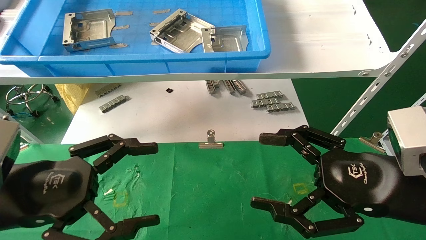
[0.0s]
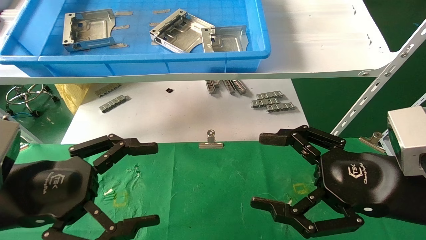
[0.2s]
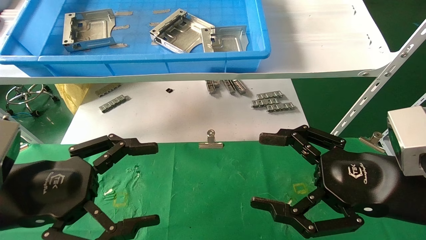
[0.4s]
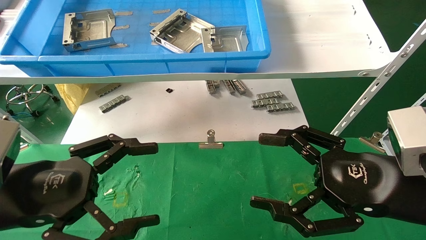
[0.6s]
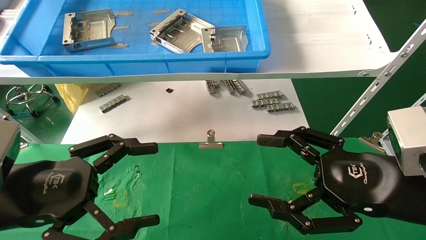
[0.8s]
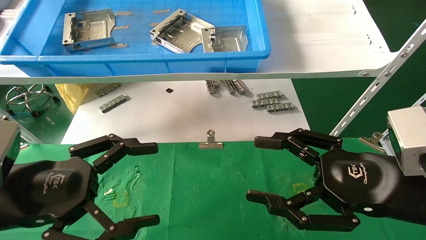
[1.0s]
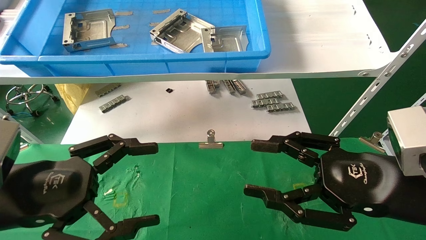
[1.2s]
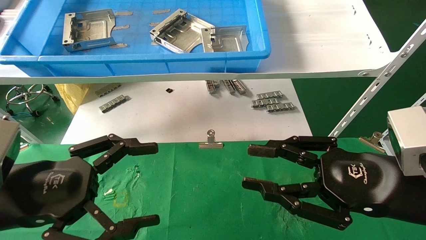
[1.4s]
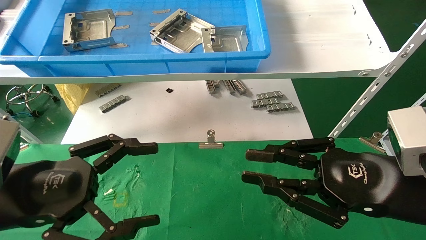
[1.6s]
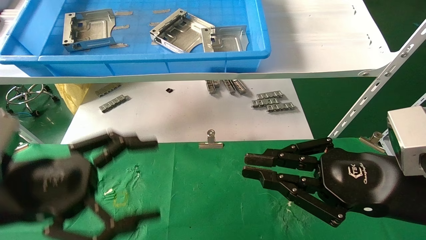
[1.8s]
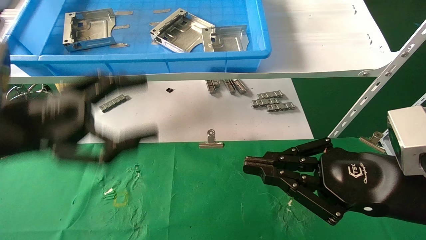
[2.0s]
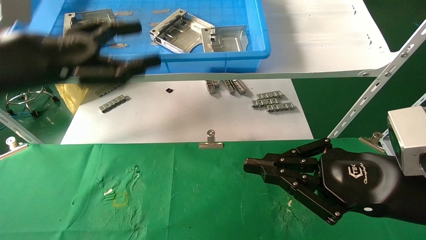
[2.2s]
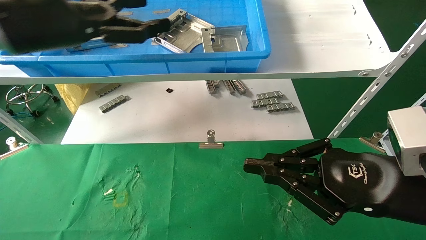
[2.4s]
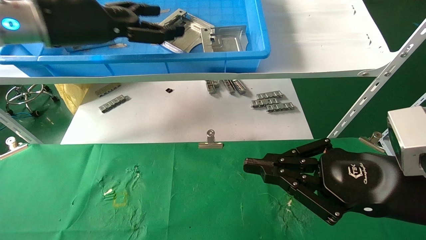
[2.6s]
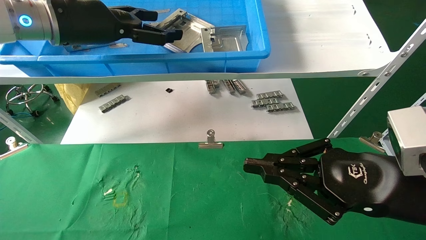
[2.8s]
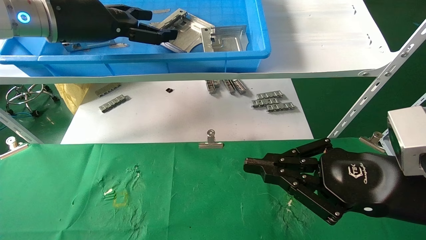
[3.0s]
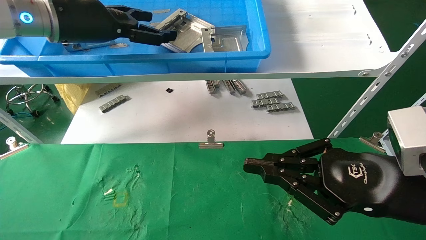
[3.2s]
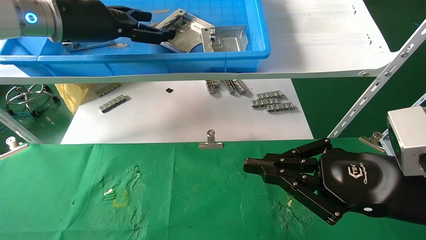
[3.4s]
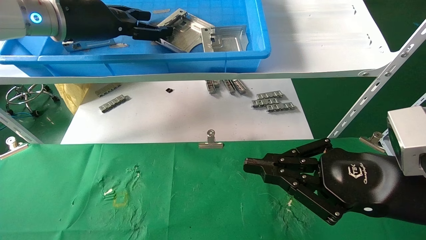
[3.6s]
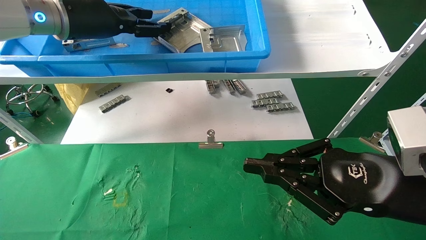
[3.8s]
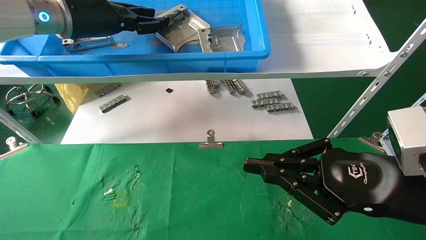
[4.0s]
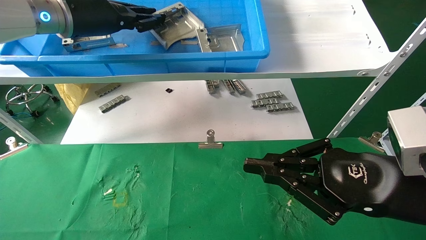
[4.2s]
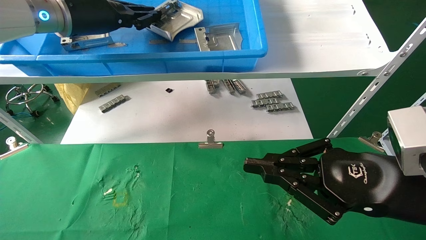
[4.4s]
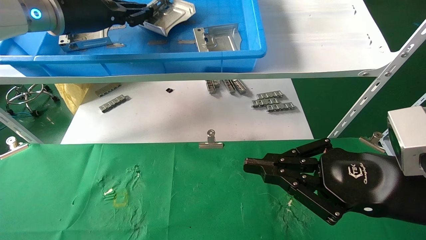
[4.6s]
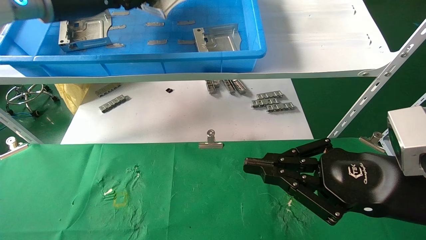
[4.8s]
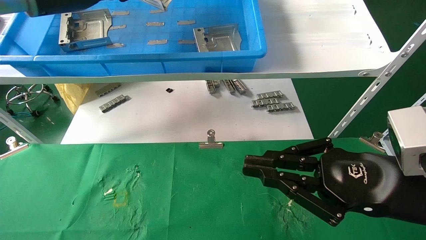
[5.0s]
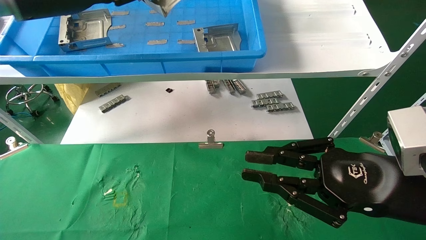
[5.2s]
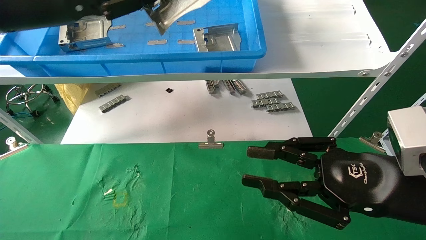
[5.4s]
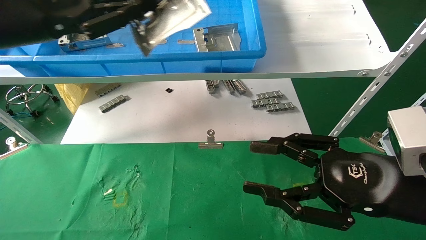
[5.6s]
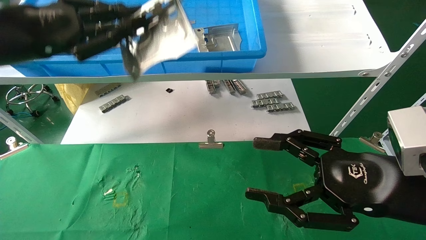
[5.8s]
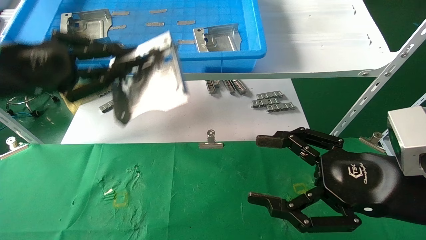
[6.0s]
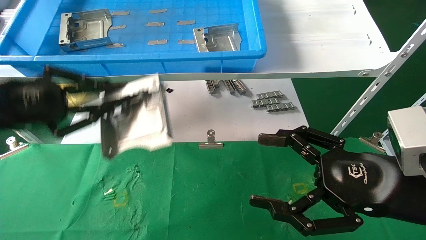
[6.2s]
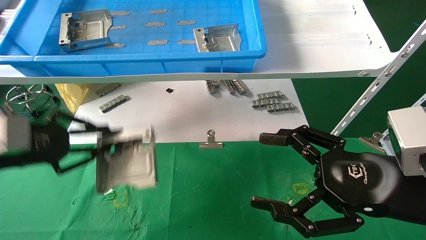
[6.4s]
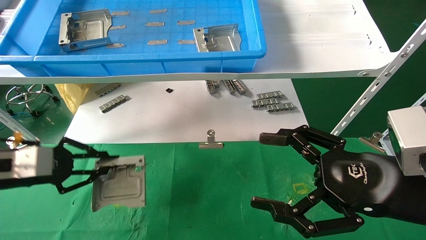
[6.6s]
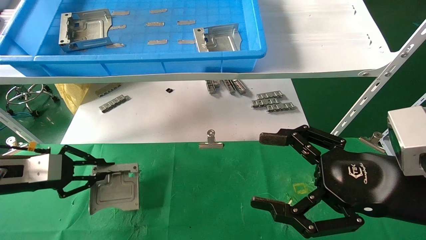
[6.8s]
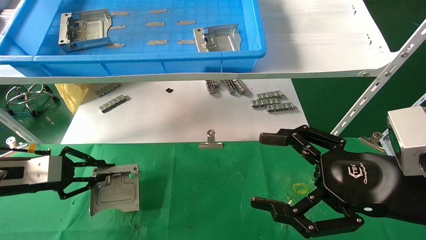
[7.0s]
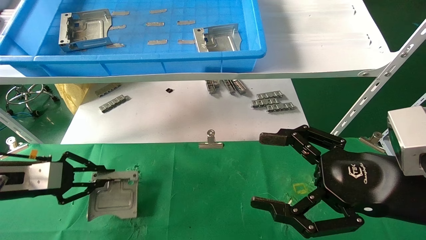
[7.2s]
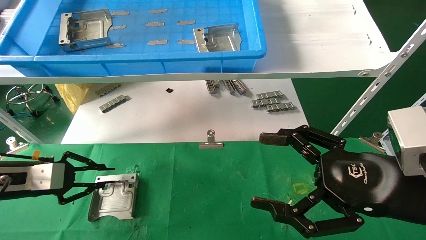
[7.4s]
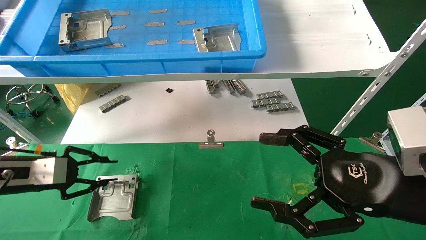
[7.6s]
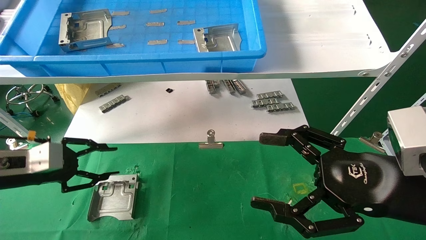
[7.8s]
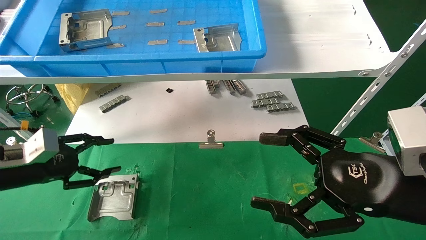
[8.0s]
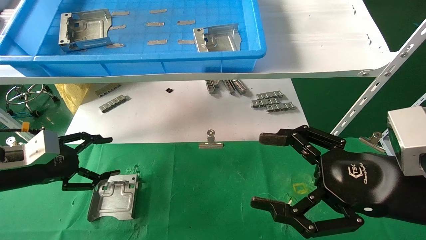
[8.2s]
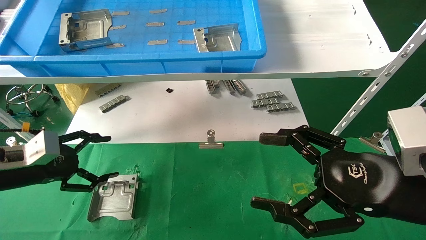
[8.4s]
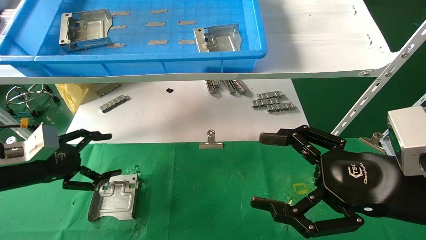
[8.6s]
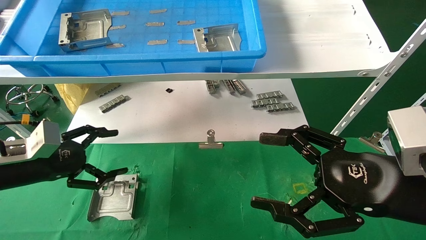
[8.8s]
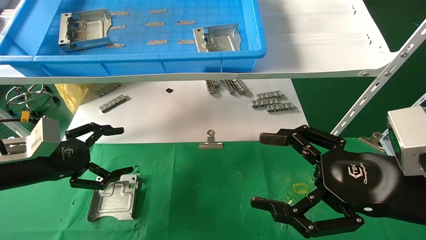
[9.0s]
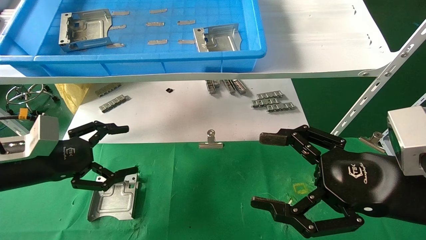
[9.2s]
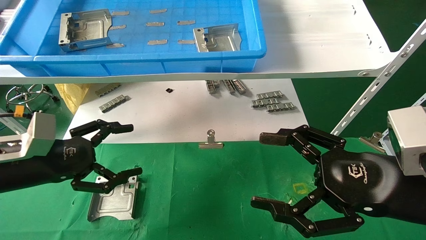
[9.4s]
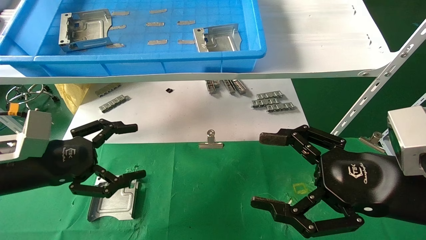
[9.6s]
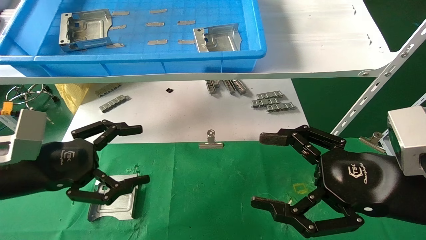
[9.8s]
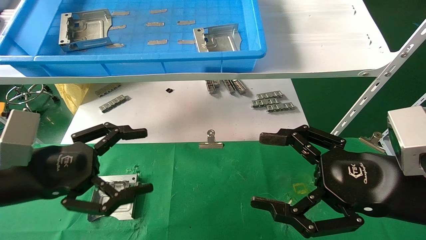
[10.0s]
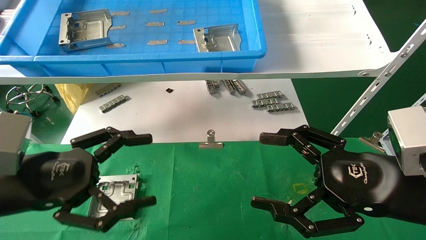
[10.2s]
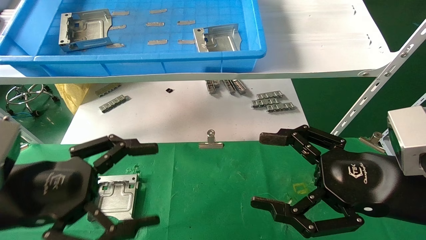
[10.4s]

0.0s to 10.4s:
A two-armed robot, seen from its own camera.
Task of the whole recording: use the mechanical arm to pick up the parts and place them on the table.
Step, 2.2s to 4.4s: Pick up the hard drive bracket from the feeding area.
Step, 4.6s to 7.4s: Place the hard drive bracket into the box.
0.0s to 1.4s: The right gripper closes.
1.4s to 3.0s: The right gripper closes, while the left gripper goes approximately 30 cm upward and forward.
3.0s to 4.4s: The left gripper closes.
4.4s to 6.0s: The left gripper heads backward, downward and to the left, covering roughly 20 cm. Meanwhile the right gripper opens.
6.0s to 7.4s: The left gripper shifts some 20 cm downward.
7.4s to 9.0s: The left gripper shifts by approximately 5 cm, and opens its fingers.
9.0s to 10.4s: The left gripper goes roughly 15 cm backward and to the right.

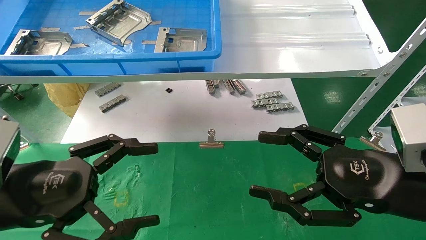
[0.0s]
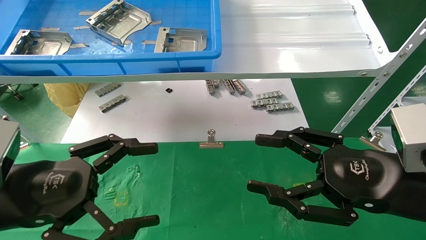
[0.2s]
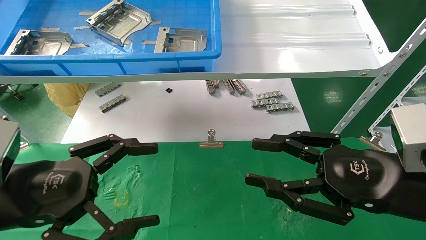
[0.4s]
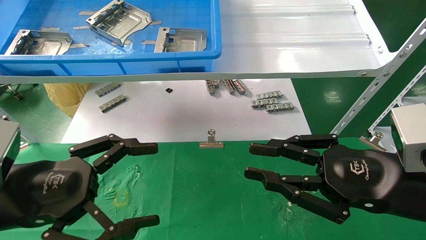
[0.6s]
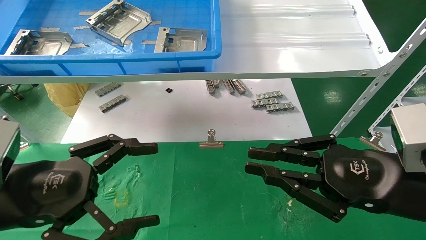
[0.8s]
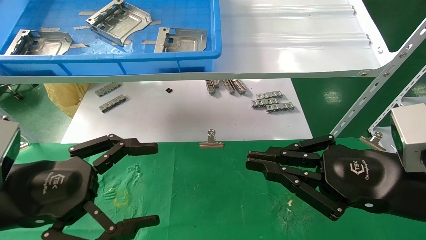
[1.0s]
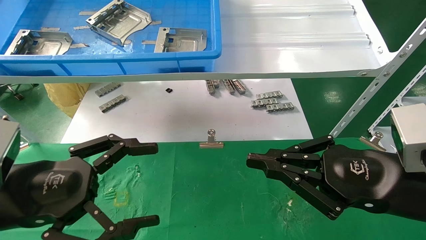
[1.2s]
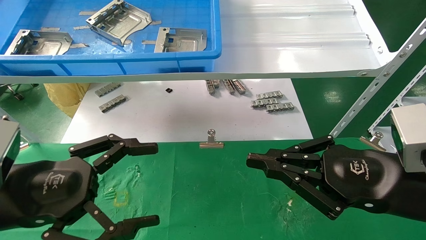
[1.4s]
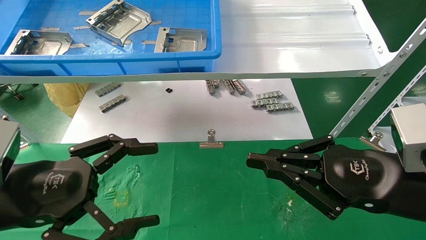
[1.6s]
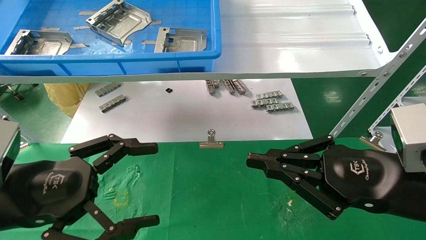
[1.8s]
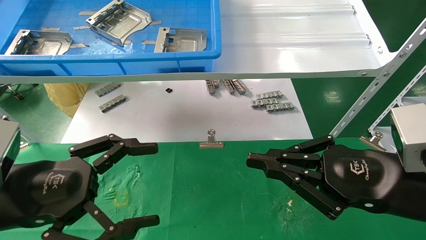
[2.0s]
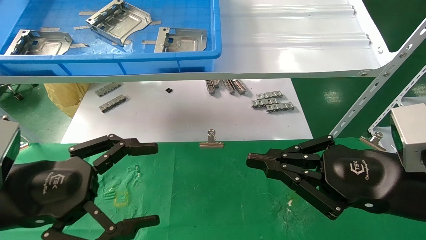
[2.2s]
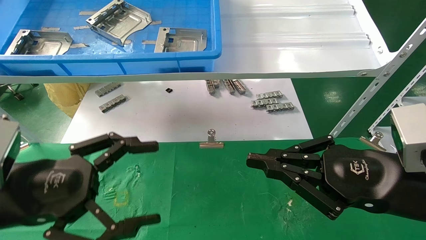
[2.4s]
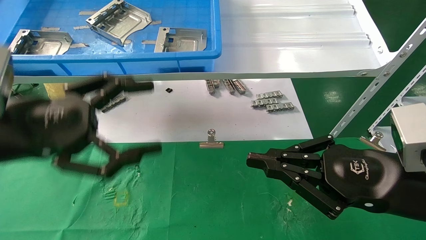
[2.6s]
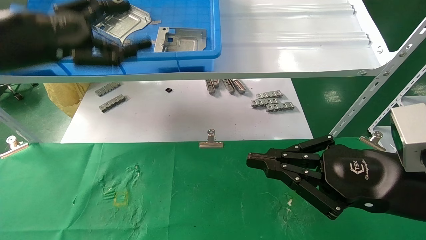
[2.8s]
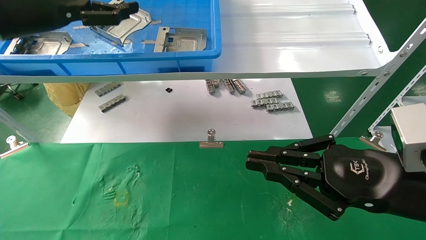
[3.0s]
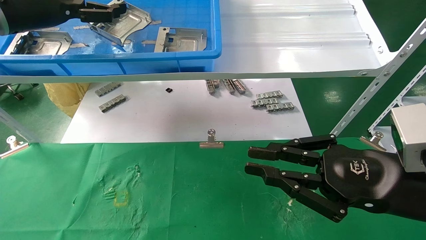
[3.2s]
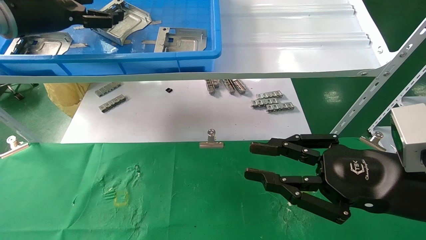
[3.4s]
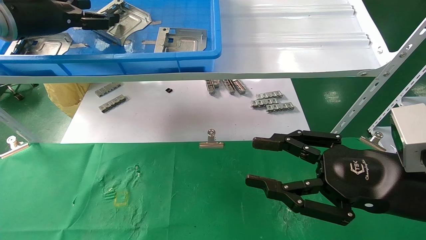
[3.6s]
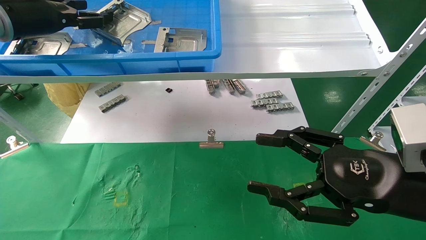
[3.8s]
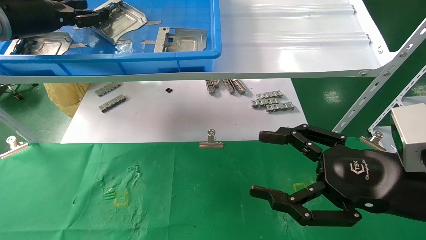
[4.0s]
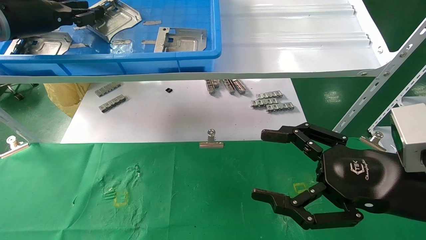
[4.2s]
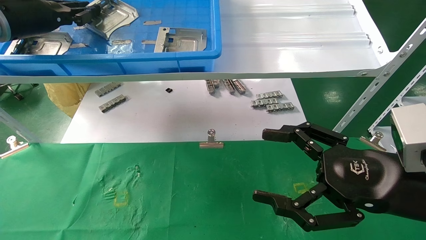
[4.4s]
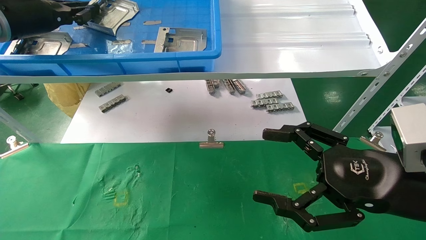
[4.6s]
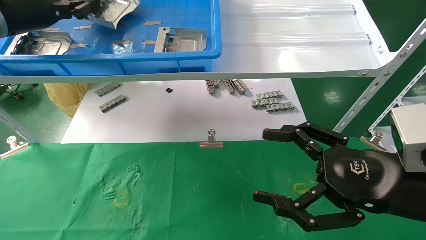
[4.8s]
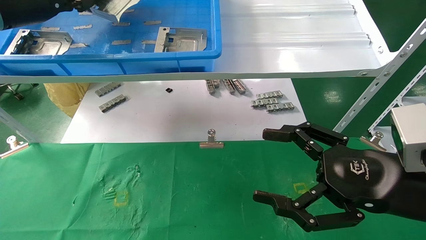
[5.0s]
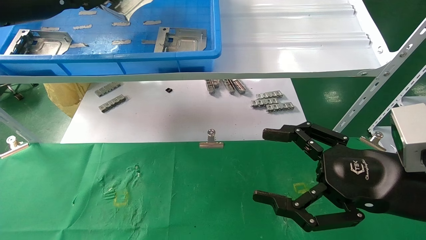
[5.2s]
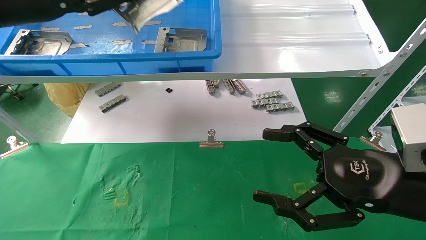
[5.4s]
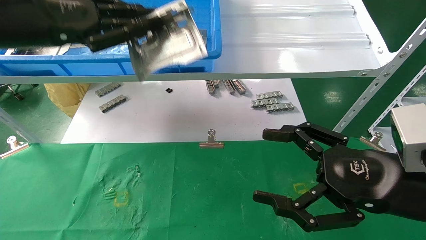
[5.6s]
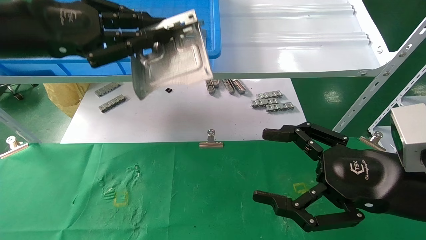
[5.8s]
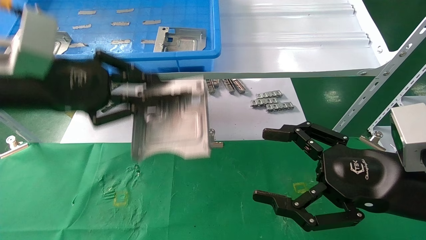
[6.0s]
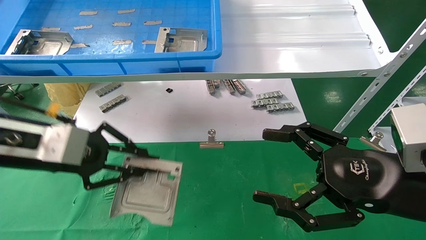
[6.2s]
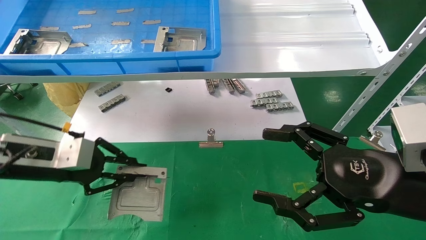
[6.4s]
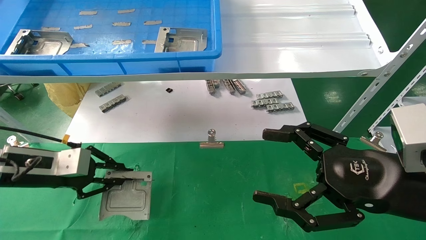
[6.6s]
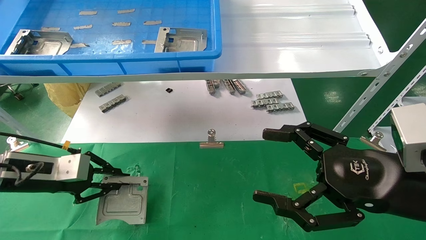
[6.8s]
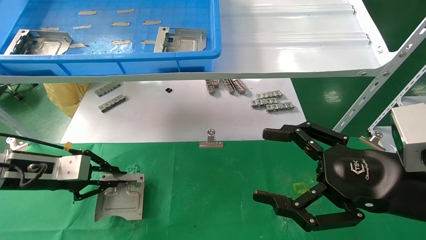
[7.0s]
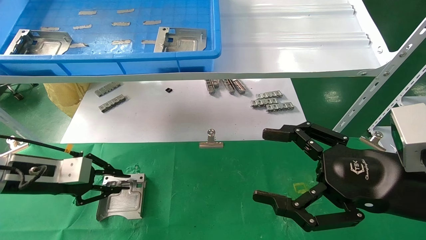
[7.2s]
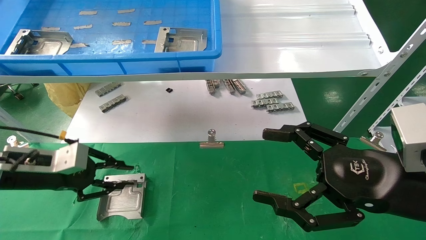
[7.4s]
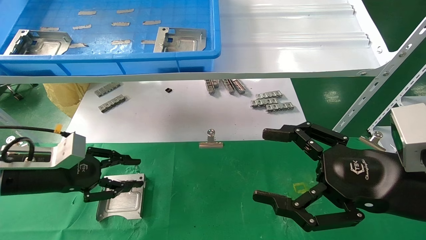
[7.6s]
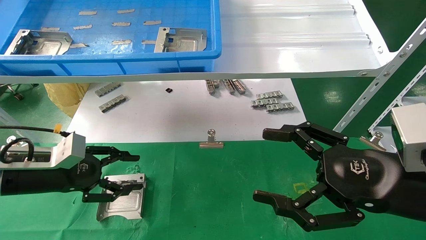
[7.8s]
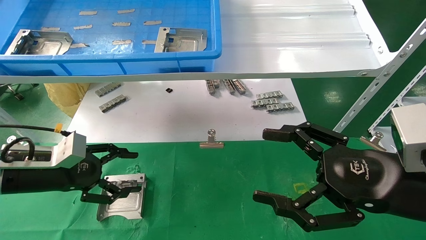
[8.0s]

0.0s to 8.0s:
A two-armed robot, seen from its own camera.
Task of the whole recording: use the mechanical arm to pick up the parts and place them on the table.
Step, 2.6s to 4.6s: Pick up the hard drive bracket from the feeding area.
Step, 4.8s to 7.2s: Place the hard drive bracket into the box.
0.0s to 1.6s: The right gripper closes up.
1.6s to 3.2s: The left gripper goes some 30 cm upward and forward.
3.2s to 4.8s: The left gripper closes; the right gripper opens its fingers.
4.8s to 6.4s: The left gripper moves downward, about 20 cm.
6.4s to 8.0s: The left gripper shifts some 5 cm downward, and opens up.
